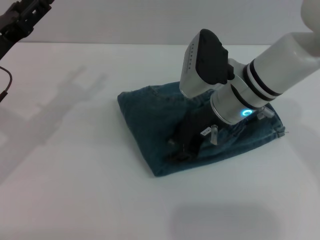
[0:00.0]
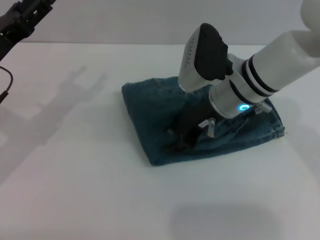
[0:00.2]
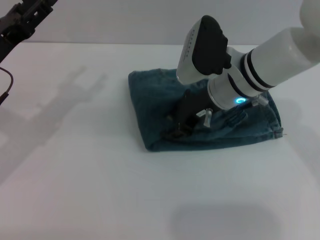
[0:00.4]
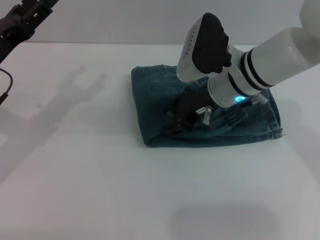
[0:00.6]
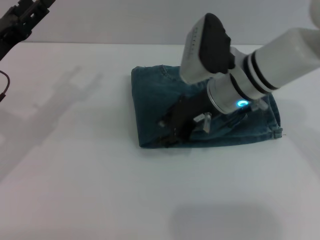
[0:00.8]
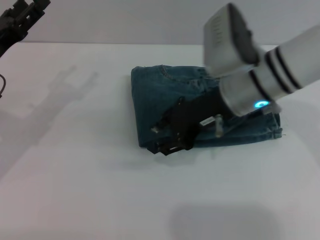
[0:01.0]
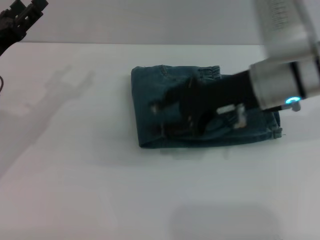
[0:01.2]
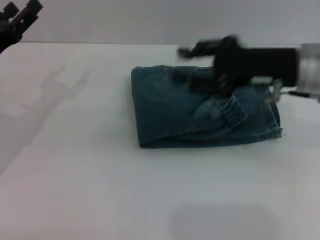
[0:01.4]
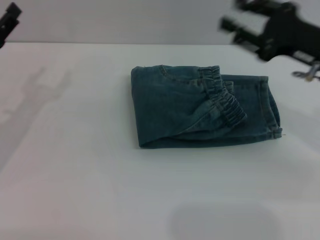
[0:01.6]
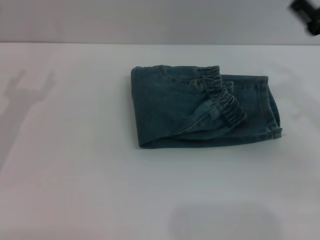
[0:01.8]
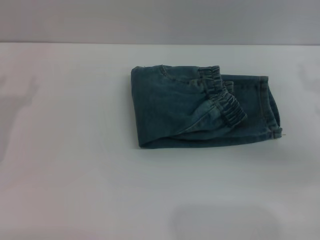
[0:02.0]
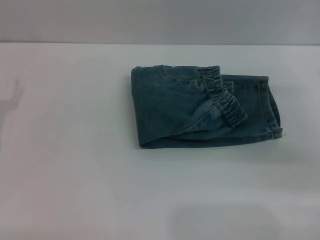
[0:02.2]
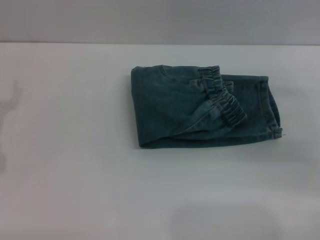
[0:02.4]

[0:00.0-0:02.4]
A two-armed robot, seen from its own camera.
0:00.0 to 0:01.2: The right gripper heads upward, covering approximately 5 cm.
0:01.2 to 0:02.4: The right gripper shifts some 20 cm to the right and downward. The left gripper changes place by about 10 cm.

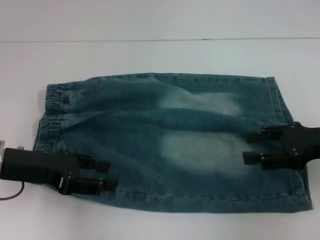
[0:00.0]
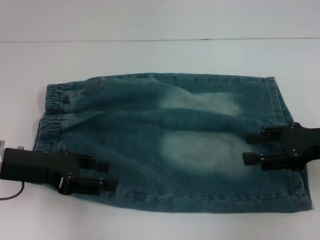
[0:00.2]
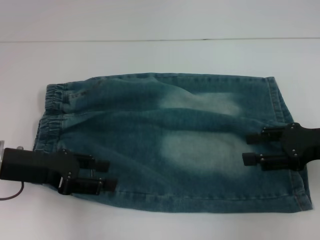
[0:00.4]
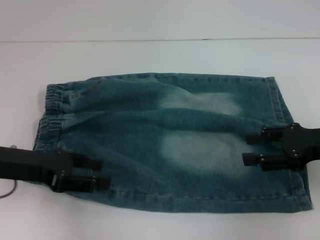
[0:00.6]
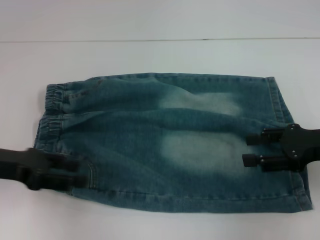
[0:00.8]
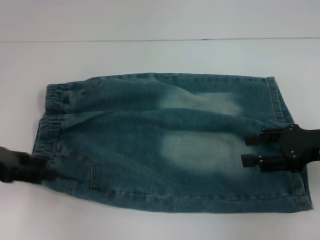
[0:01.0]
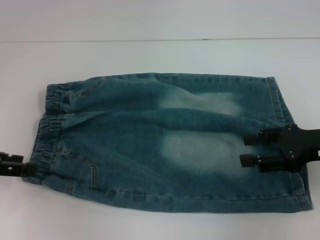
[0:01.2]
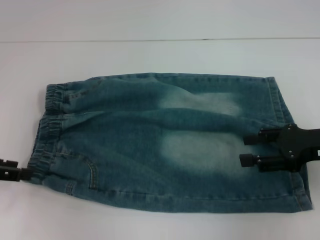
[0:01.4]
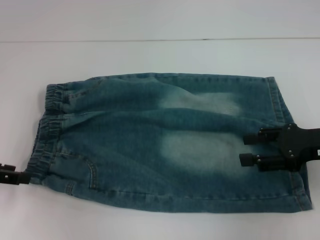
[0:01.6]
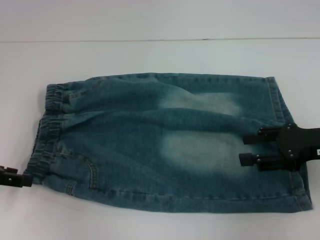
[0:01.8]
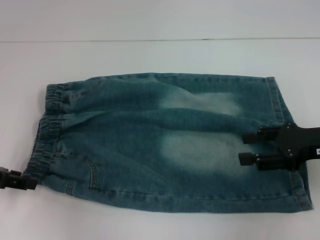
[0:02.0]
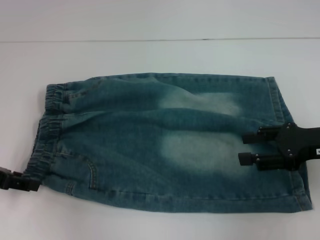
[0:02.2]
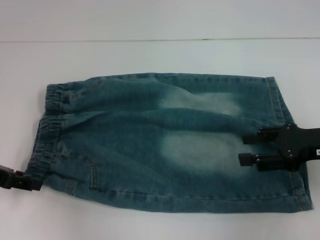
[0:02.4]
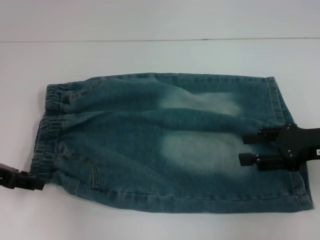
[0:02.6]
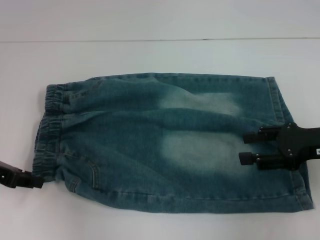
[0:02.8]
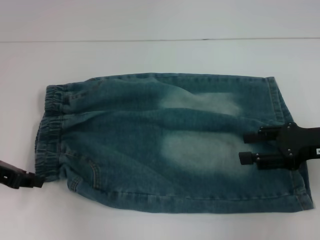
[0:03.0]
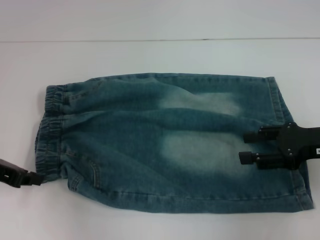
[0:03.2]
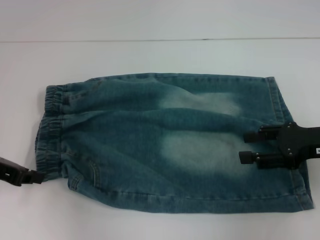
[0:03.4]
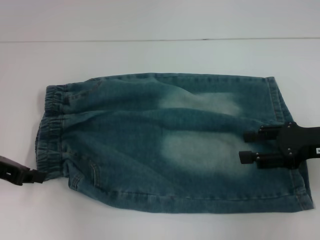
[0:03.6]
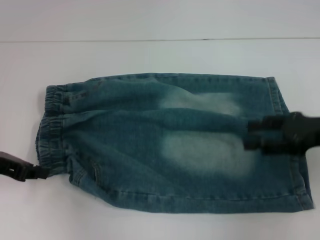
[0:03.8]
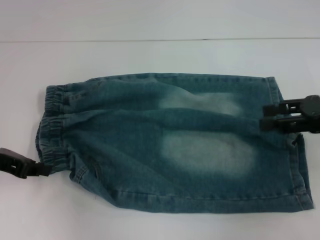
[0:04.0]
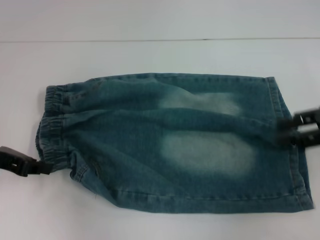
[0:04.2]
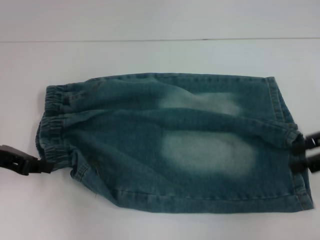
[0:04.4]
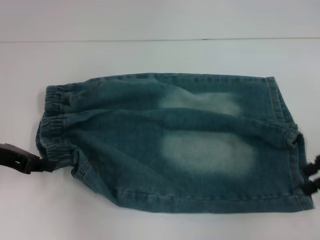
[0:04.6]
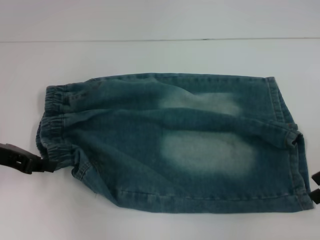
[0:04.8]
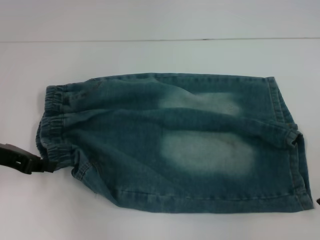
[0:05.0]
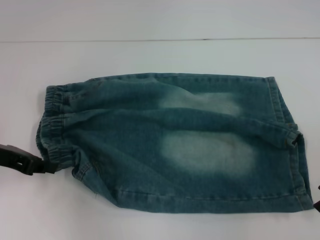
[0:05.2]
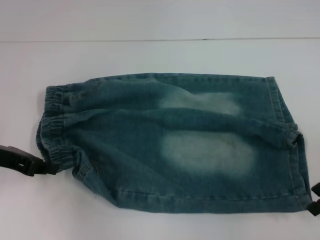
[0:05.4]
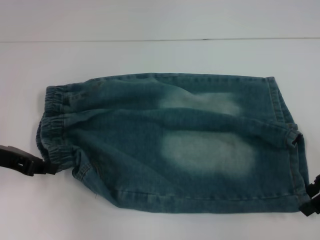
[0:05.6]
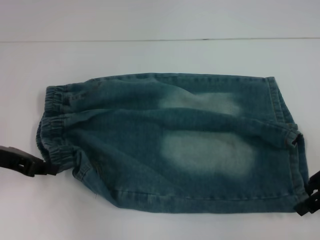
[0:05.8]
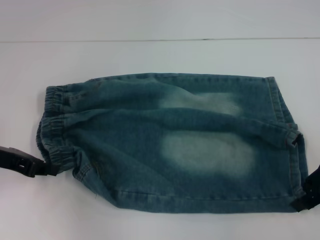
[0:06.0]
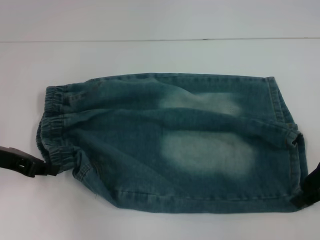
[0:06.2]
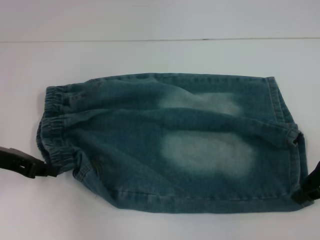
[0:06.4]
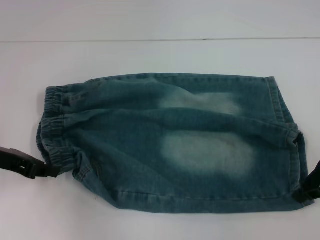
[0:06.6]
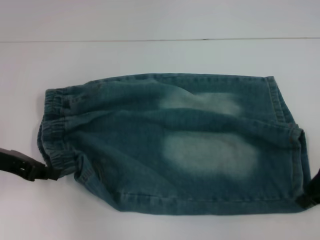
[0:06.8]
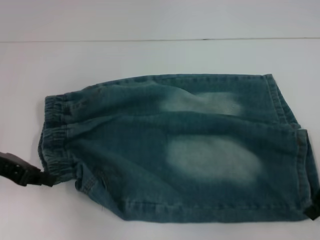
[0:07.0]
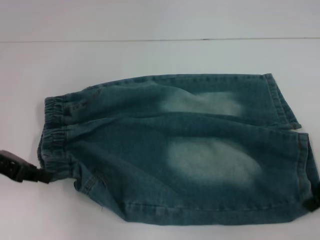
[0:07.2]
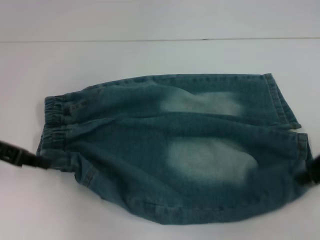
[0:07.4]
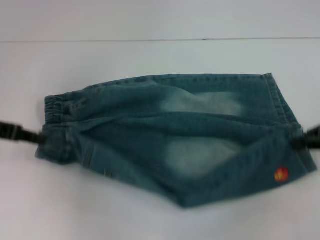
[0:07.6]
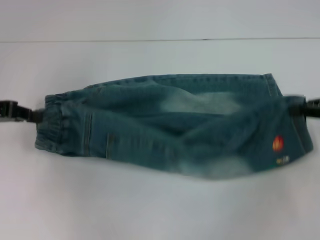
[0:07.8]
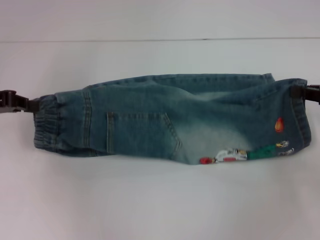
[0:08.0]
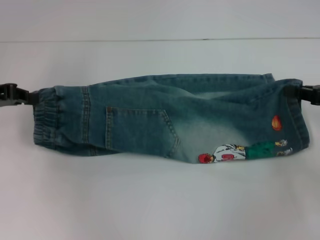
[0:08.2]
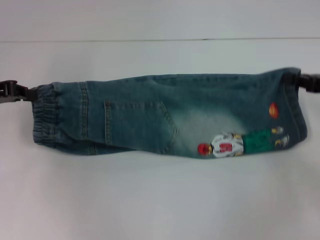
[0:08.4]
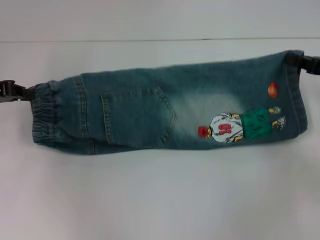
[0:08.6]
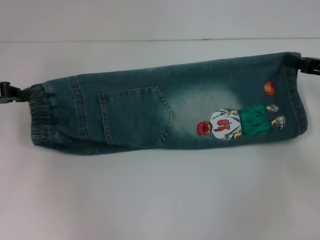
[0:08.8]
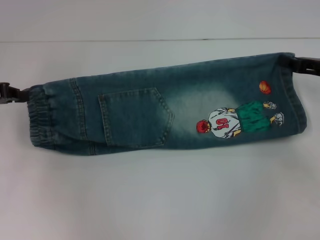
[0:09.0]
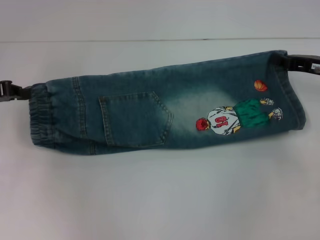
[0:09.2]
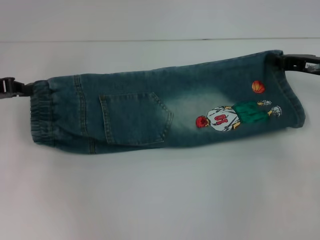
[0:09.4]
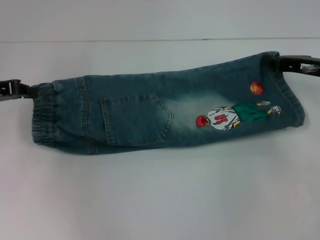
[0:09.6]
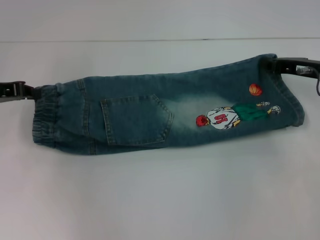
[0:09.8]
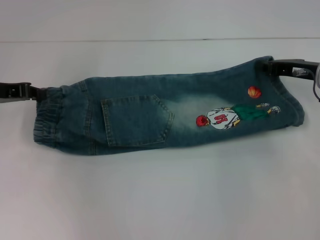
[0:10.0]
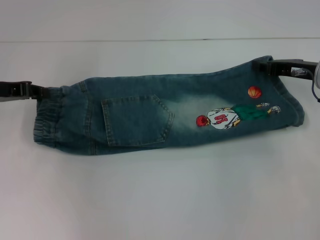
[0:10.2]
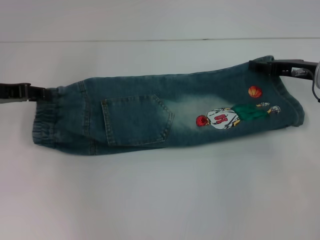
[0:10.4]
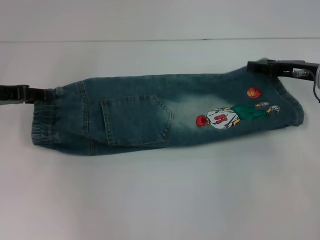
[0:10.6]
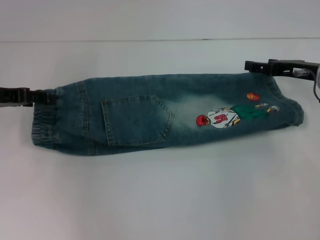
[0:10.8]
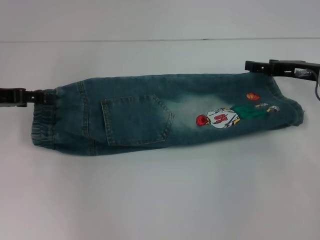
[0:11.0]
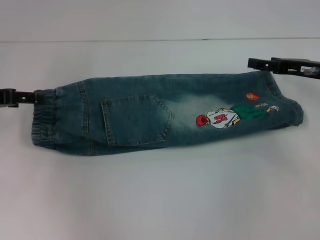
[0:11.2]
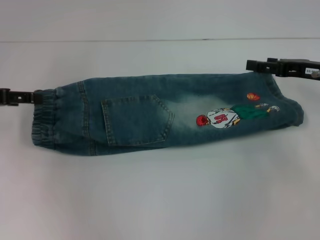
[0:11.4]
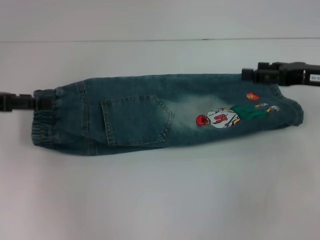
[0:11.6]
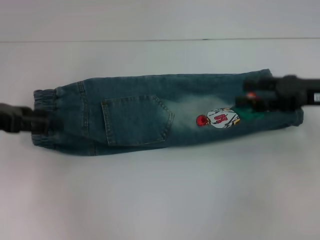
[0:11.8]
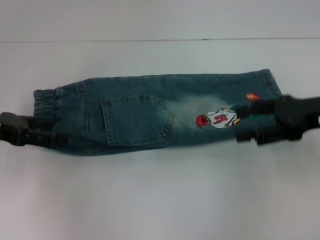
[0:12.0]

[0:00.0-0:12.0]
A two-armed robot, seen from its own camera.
Step, 0:00.0 to 0:03.0: Hold the lower left waistband with your left hand.
Step, 0:03.2 to 0:06.0: Grab the lower right pant leg with your right hand.
Step, 0:06.2 to 0:09.8: Fold upward with your left hand.
Step, 0:10.0 to 0:10.6: Fold upward with your right hand.
0:00.0 to 0:01.6: The left gripper shifts approximately 10 cm to the left.
0:01.6 to 0:03.0: There are only small adjustments of the grippers.
0:03.0 to 0:04.4: The left gripper closes its fingers. Meanwhile the right gripper is displaced upward by some 5 cm.
0:04.4 to 0:06.0: The right gripper travels downward by roughly 5 cm.
0:06.0 to 0:07.6: The right gripper shifts by roughly 5 cm, and closes.
0:07.6 to 0:09.0: The right gripper goes about 5 cm forward.
0:09.0 to 0:10.4: The right gripper opens up.
0:10.4 to 0:12.0: The left gripper heads backward, covering about 5 cm, and opens its fingers. The right gripper travels backward and upward by about 10 cm, and opens.

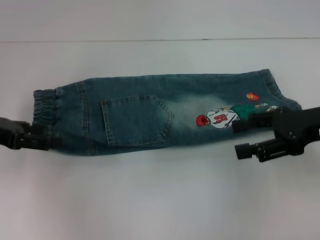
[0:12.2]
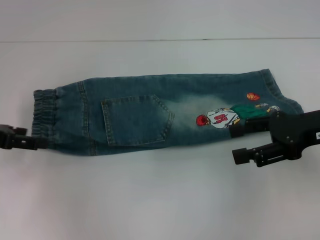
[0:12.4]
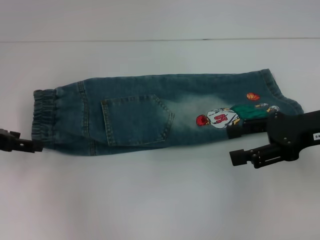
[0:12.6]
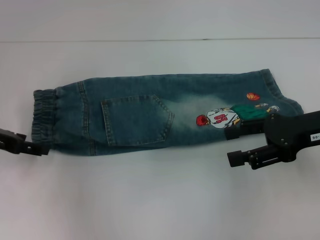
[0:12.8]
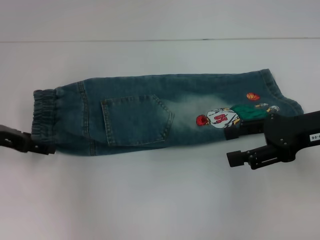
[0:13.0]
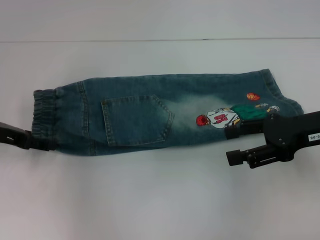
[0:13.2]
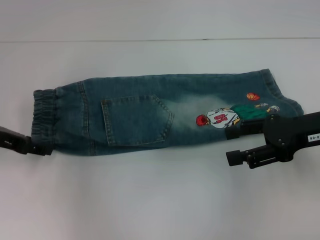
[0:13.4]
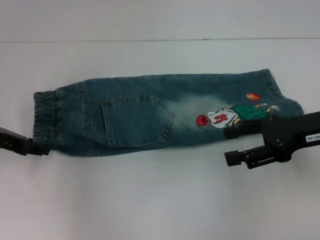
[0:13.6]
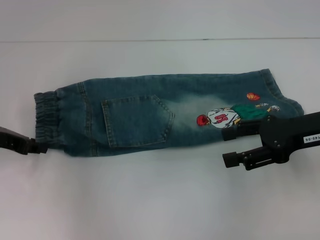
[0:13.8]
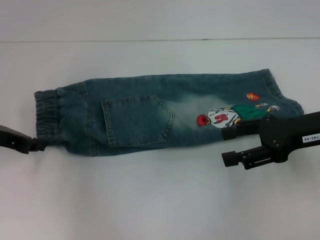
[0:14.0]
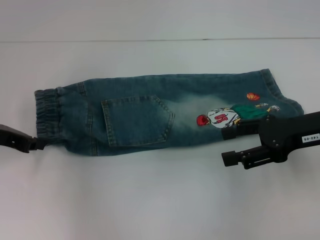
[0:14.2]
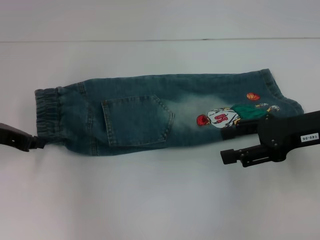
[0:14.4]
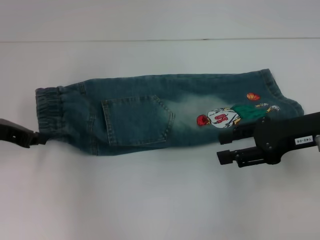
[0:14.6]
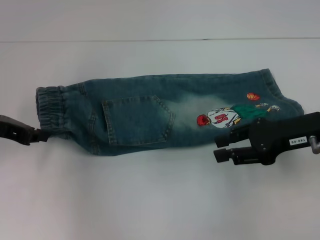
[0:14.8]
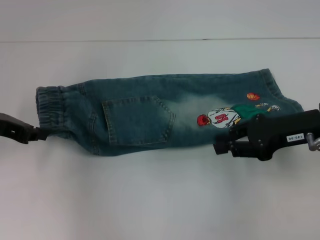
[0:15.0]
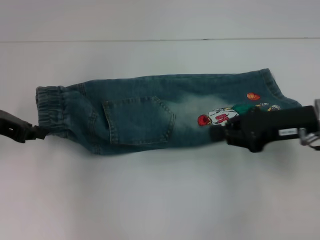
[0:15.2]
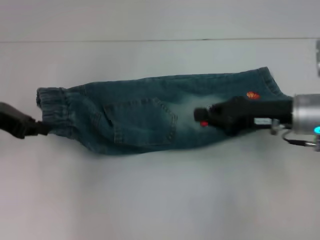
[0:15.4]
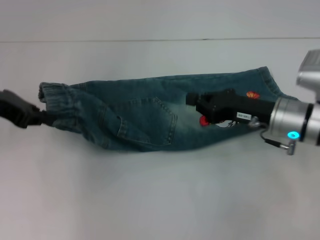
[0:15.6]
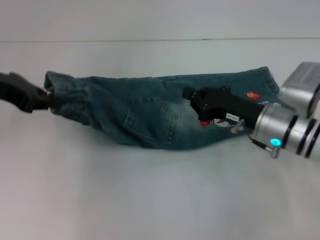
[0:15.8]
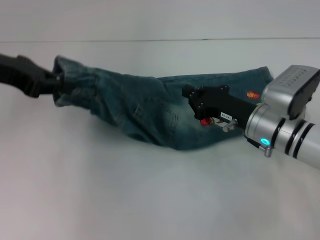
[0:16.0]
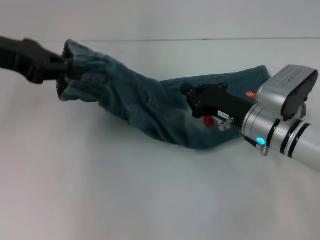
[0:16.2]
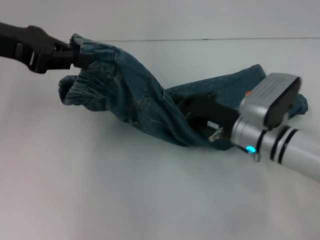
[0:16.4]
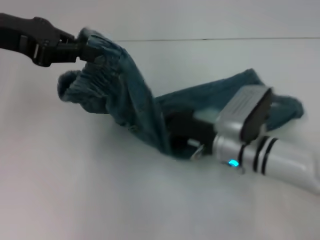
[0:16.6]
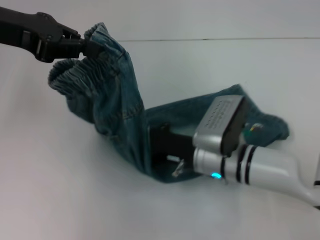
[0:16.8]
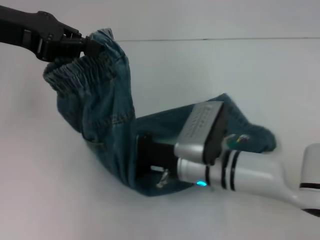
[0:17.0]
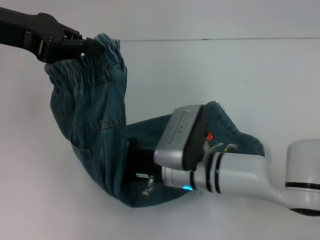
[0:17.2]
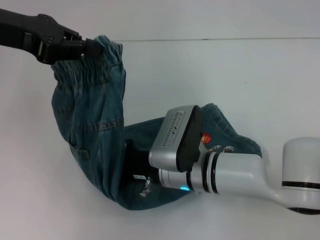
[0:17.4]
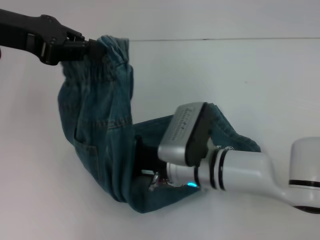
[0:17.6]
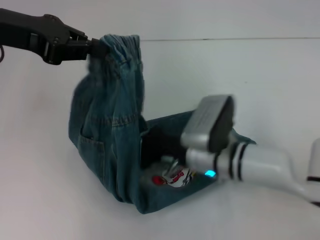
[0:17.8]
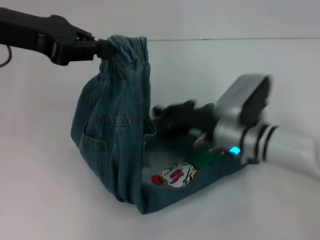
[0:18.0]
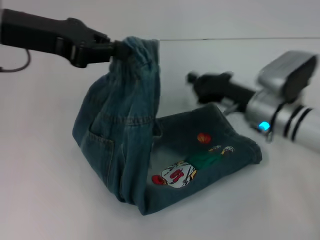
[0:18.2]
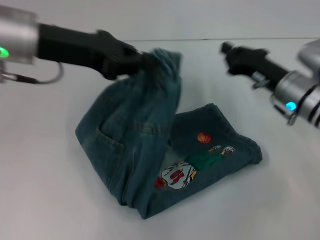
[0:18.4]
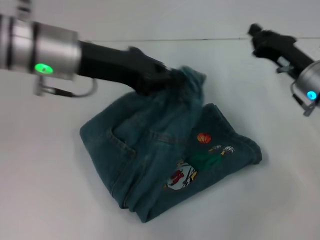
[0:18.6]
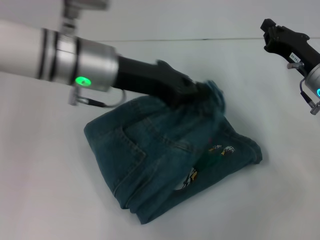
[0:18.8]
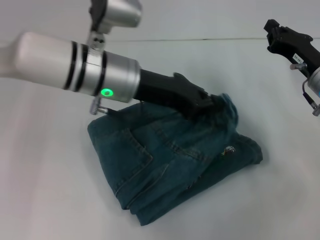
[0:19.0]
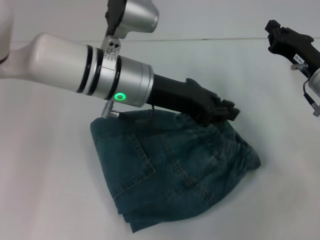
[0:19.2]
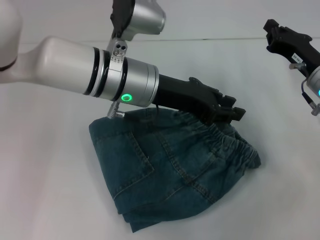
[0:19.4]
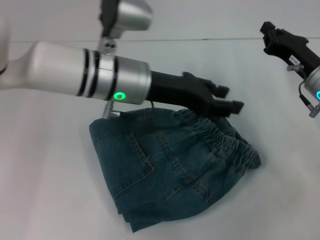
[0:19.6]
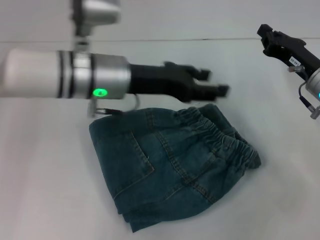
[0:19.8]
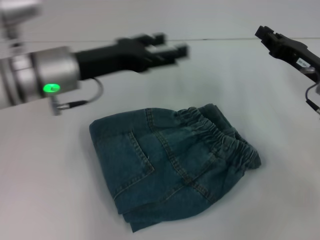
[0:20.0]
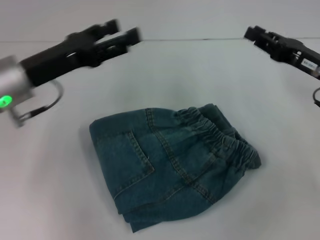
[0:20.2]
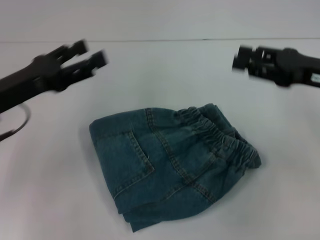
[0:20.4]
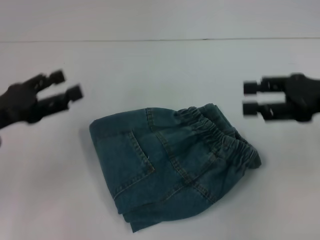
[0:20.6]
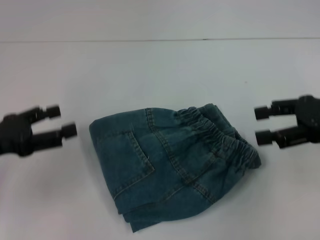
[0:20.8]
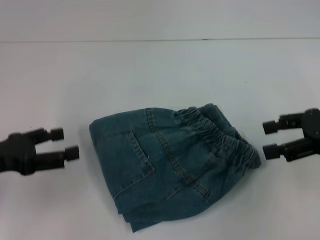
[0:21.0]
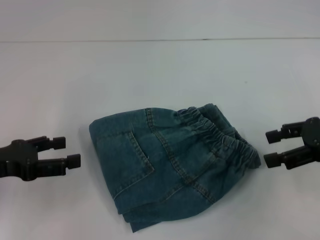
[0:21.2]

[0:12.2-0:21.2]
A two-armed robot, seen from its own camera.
Step, 0:12.2 to 0:13.8: Hold the waistband with your left hand.
Step, 0:14.0 to 0:17.6: Press the middle of the pants with your right hand.
Step, 0:17.8 to 0:19.2: Fold to the right with your left hand.
0:12.2 to 0:13.8: The left gripper closes up.
0:13.8 to 0:15.2: The left gripper closes its fingers, while the right gripper closes.
0:15.2 to 0:16.6: The right gripper shifts roughly 15 cm to the left and downward; the left gripper moves upward, roughly 10 cm.
0:16.6 to 0:18.2: The right gripper travels to the left and back again, about 10 cm each way.
0:18.2 to 0:19.8: The right gripper heads to the right, covering about 10 cm; the left gripper goes some 15 cm to the right and downward, and opens its fingers.
0:19.8 to 0:21.2: The right gripper travels upward, backward and to the right by some 10 cm, and opens up. Meanwhile the left gripper is displaced to the left and backward by roughly 25 cm, and opens.
